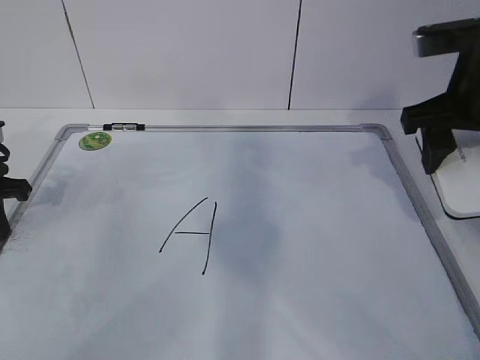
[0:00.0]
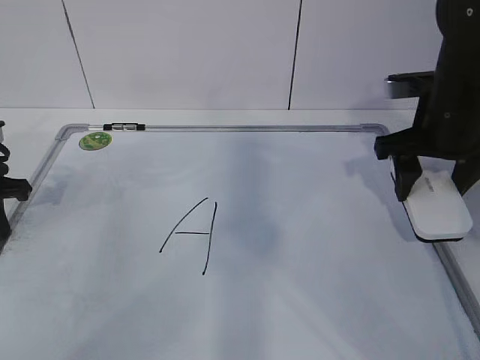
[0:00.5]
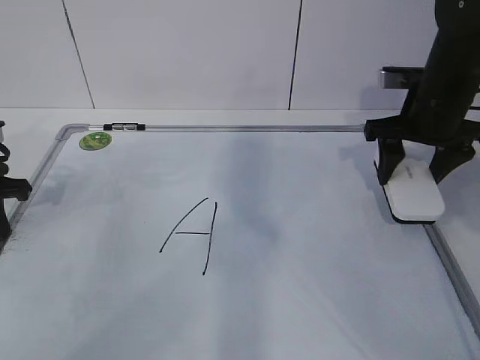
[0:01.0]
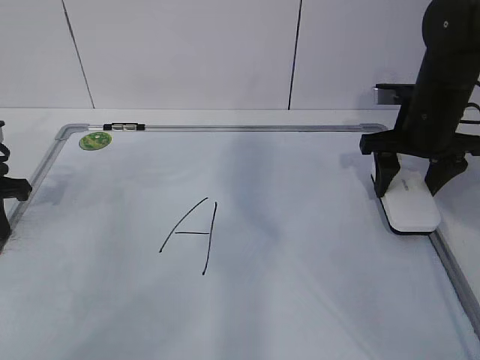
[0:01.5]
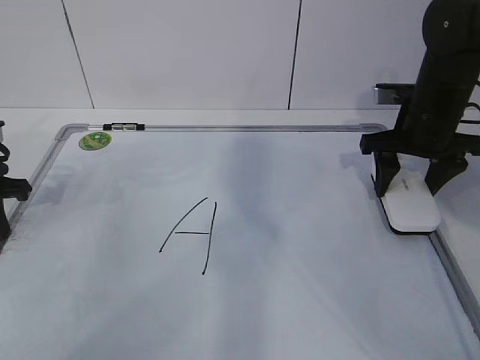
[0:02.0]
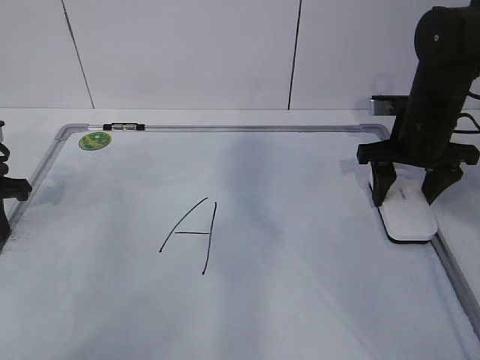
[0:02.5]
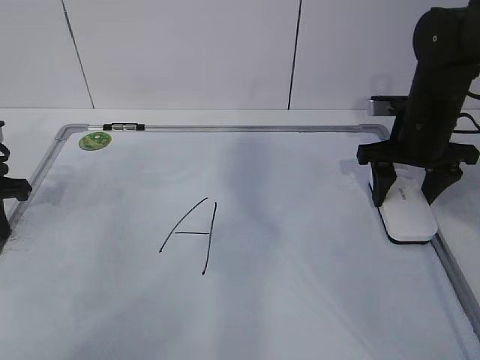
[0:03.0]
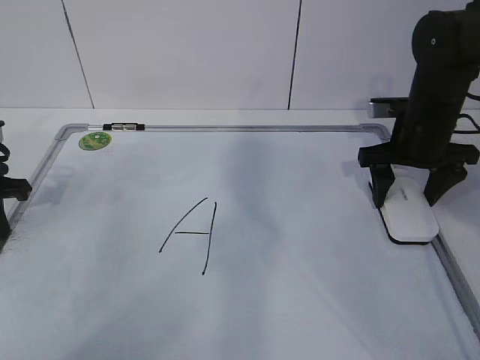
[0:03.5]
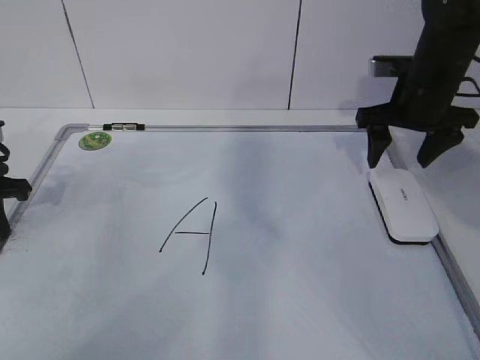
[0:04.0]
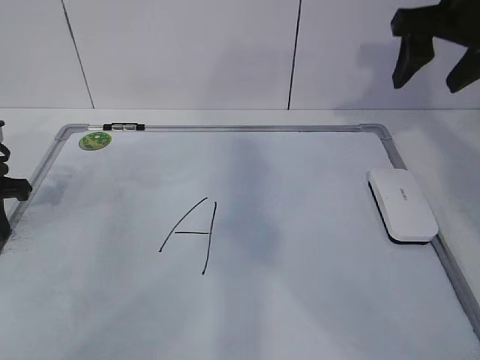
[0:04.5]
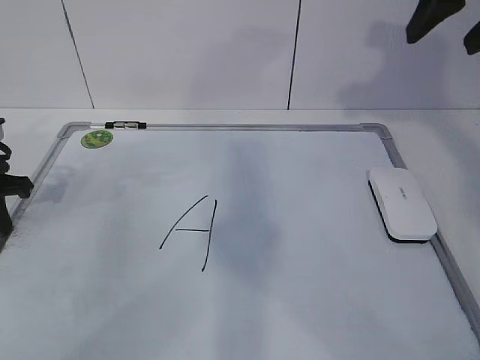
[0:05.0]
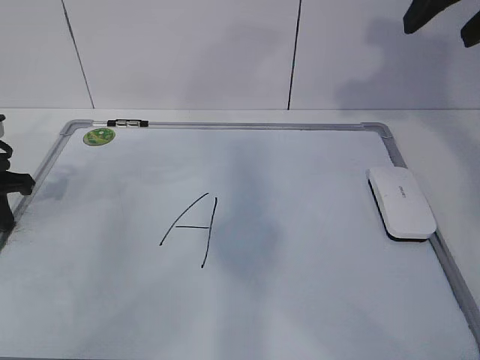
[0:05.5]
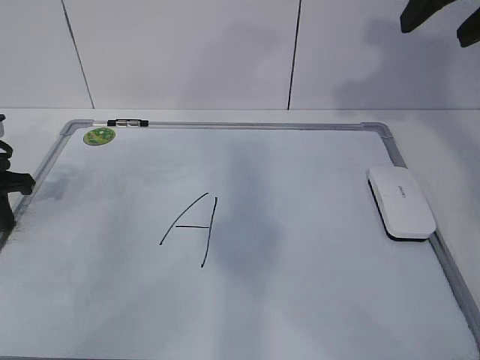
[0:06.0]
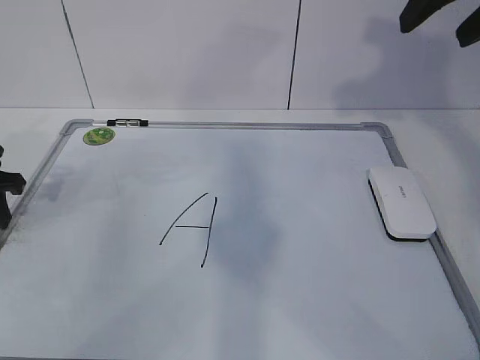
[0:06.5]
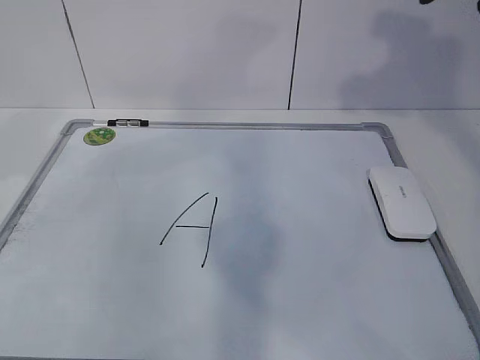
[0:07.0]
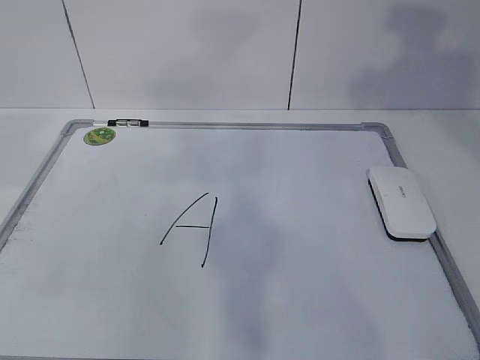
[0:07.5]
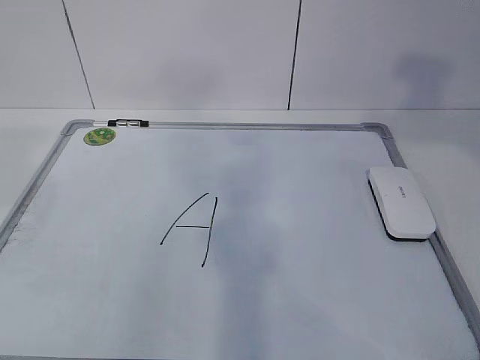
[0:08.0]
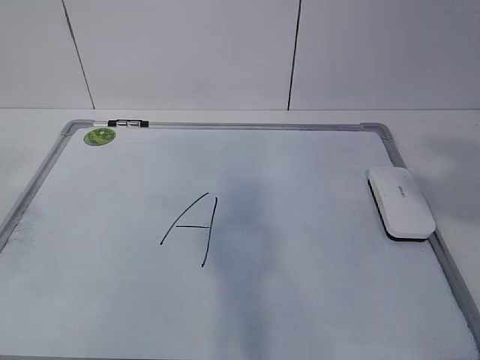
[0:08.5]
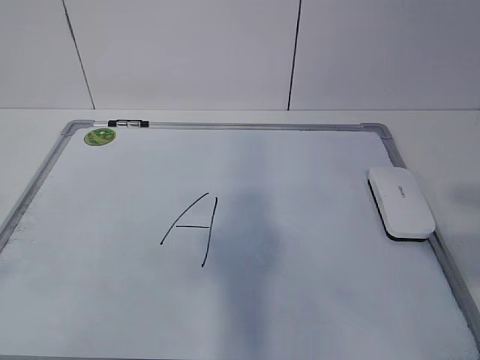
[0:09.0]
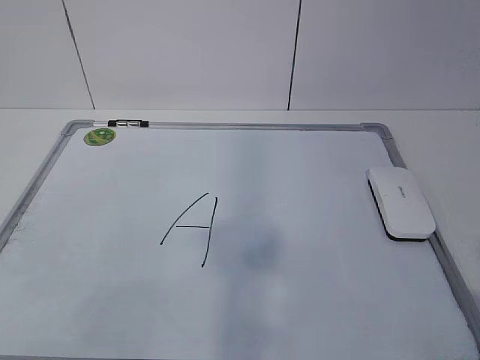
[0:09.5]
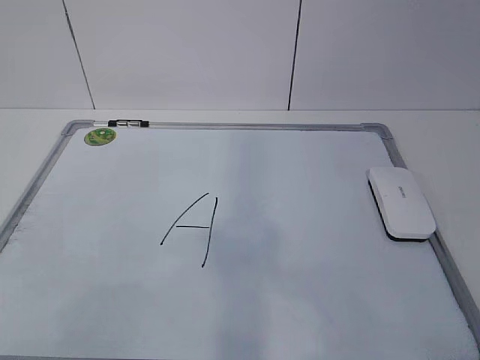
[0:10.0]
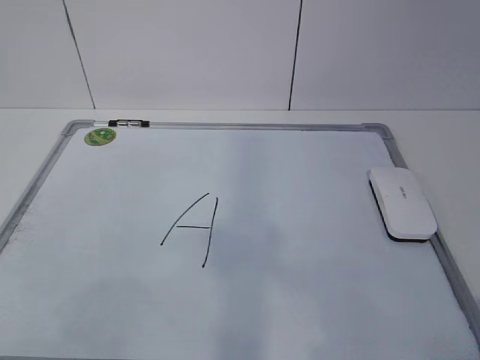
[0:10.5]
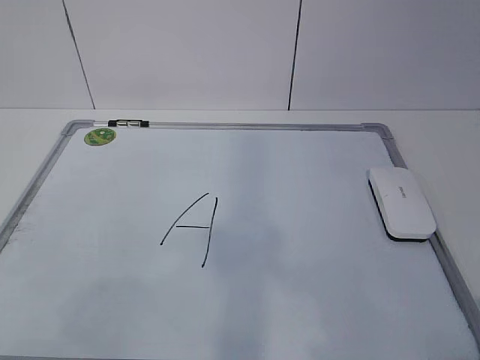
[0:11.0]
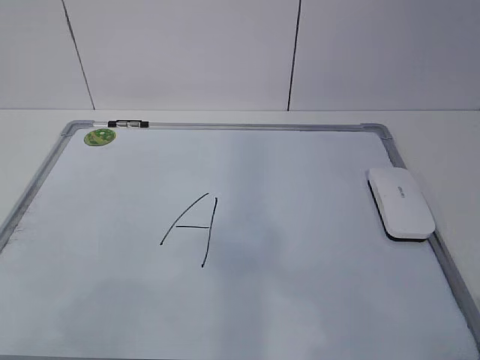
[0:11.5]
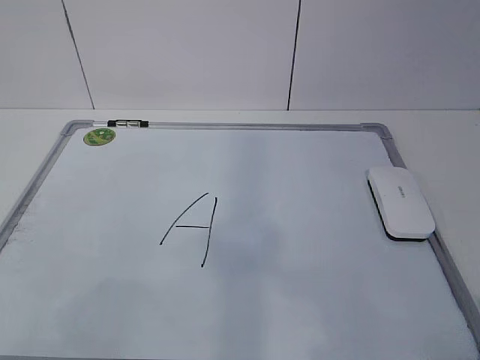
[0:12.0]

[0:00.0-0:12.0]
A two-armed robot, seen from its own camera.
Task of the whole recording: pick up the eraser on the blackboard and erase the letter "a".
0:00.0 to 0:02.0: The right gripper is displaced downward and forward by about 15 cm.
0:02.0 to 0:04.0: The right gripper opens.
0:04.0 to 0:06.0: The right gripper is displaced upward and backward by some 20 cm.
0:06.0 to 0:08.0: The left gripper heads upward and backward, covering some 35 cm, and opens. Meanwhile the right gripper heads backward and upward, covering some 15 cm.

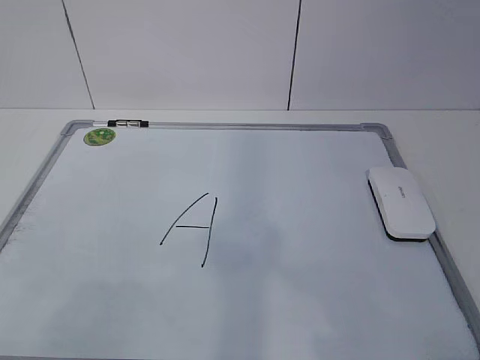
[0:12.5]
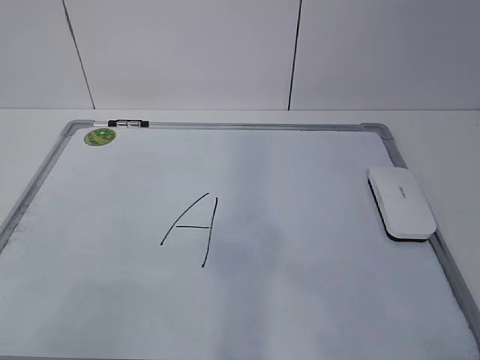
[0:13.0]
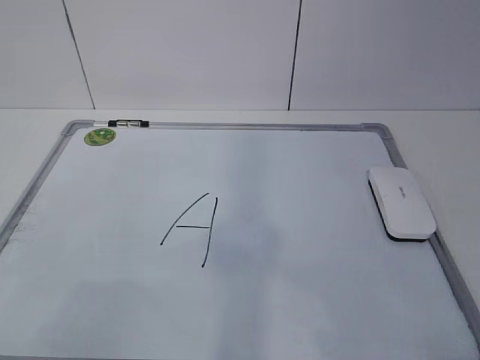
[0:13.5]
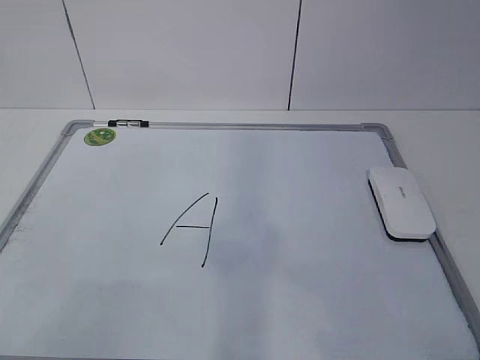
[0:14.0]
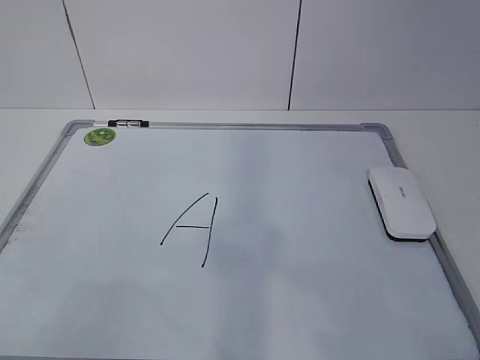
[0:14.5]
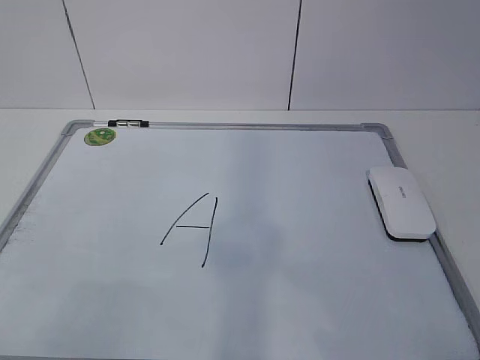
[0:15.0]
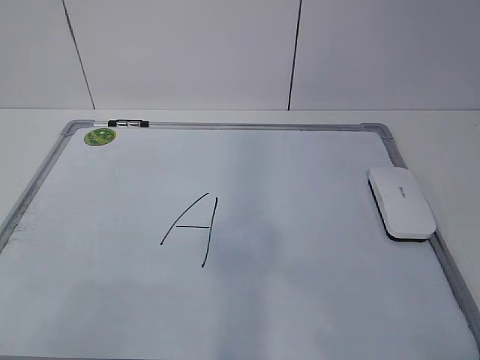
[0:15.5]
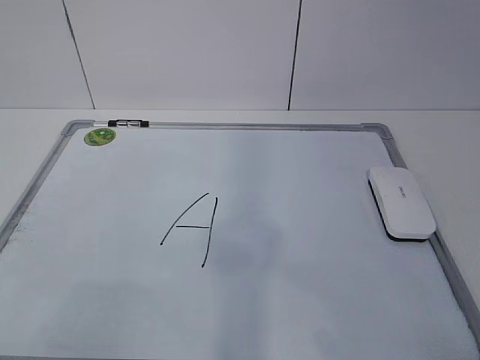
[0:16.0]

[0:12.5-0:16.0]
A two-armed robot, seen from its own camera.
Task of the whole recording: pick up the eraser on the blackboard and erase the letter "a".
0:12.5 to 0:16.0: The two grippers keep their place.
